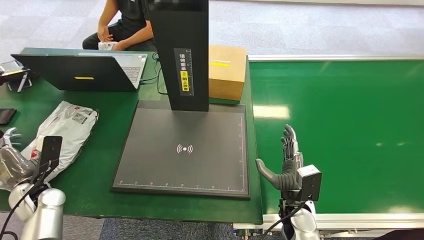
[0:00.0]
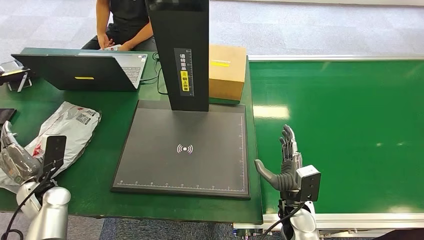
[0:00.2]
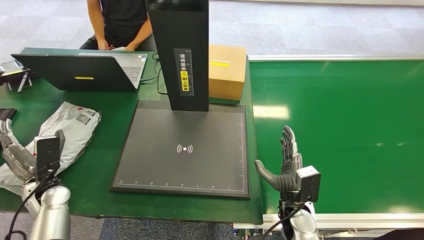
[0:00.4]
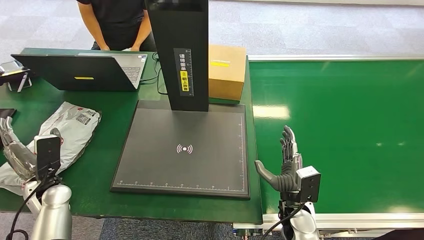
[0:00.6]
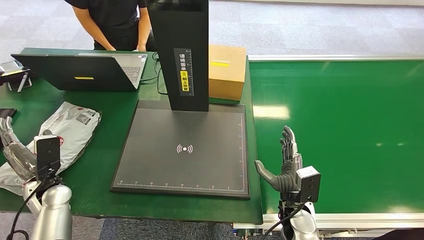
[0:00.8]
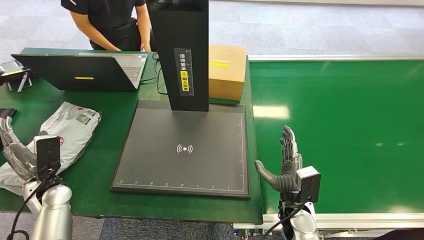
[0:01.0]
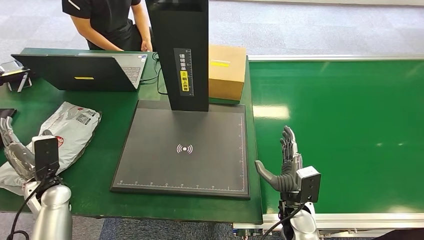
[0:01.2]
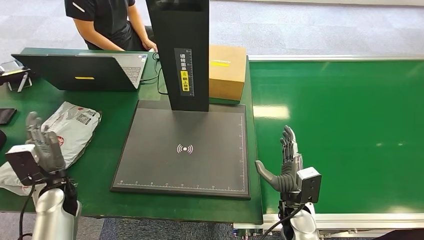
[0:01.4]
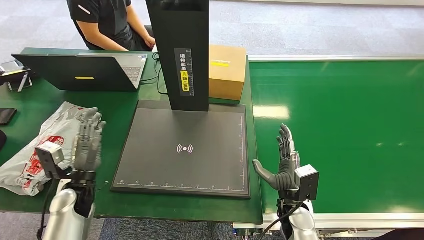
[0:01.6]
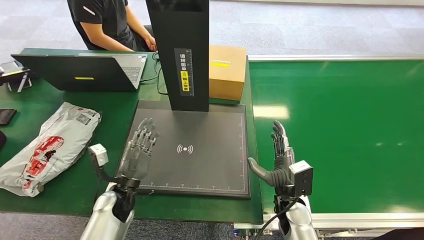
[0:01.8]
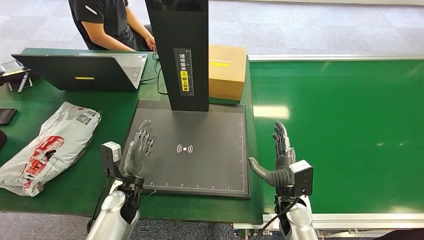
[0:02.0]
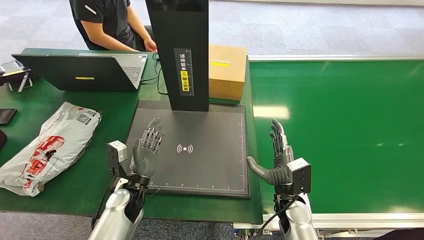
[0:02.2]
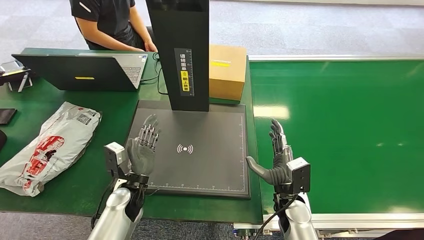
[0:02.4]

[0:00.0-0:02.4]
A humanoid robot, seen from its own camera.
Task of the whole recording: Weigh the package on the weighing device and place it in the left basket.
Step, 0:00.0 to 0:02.4: Place the package into the parcel locker.
0:01.2 to 0:02.4: The left hand heads to the right, covering approximately 20 cm.

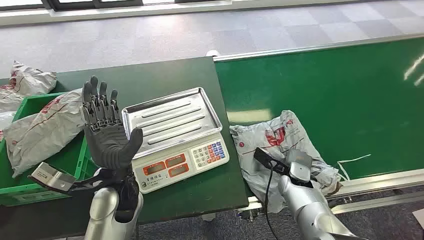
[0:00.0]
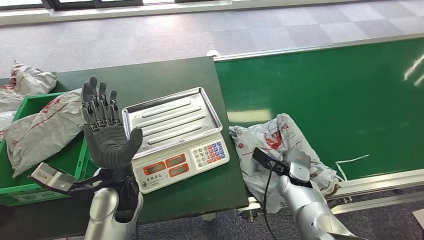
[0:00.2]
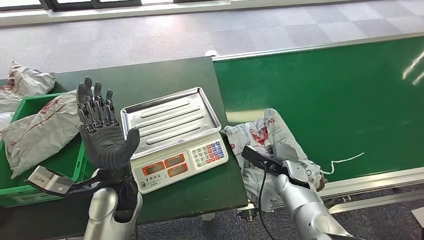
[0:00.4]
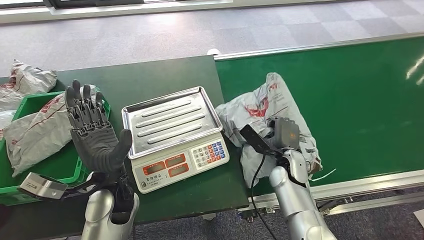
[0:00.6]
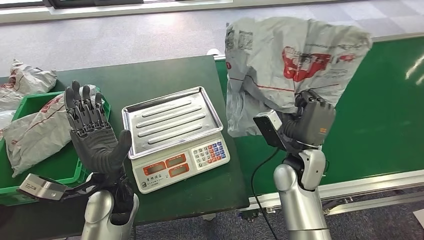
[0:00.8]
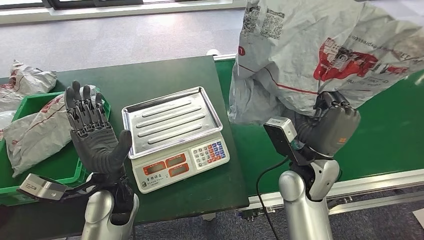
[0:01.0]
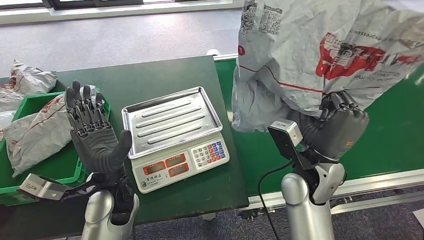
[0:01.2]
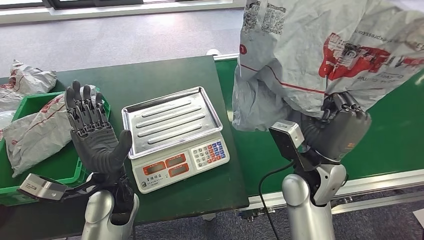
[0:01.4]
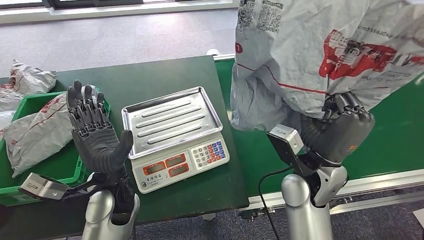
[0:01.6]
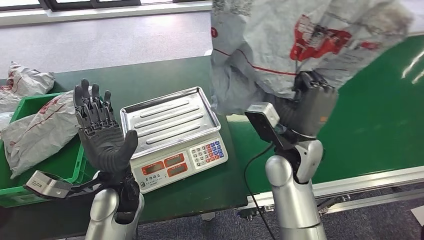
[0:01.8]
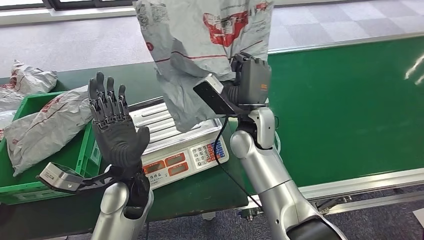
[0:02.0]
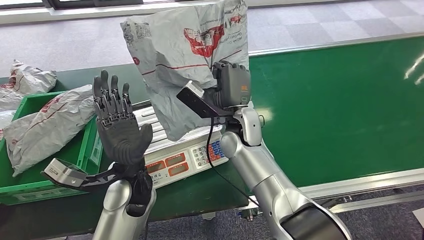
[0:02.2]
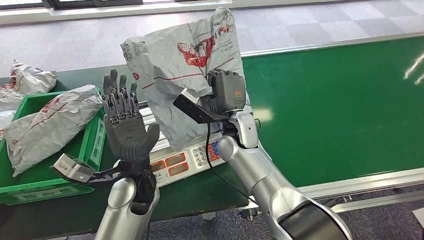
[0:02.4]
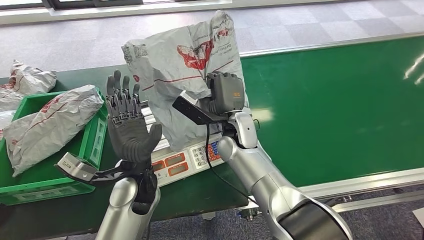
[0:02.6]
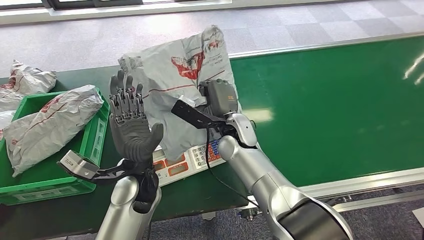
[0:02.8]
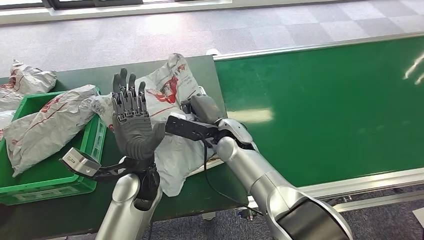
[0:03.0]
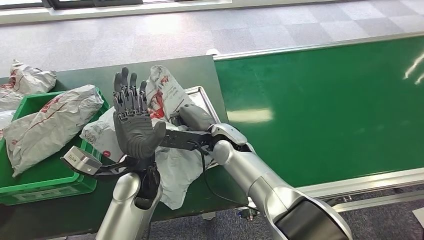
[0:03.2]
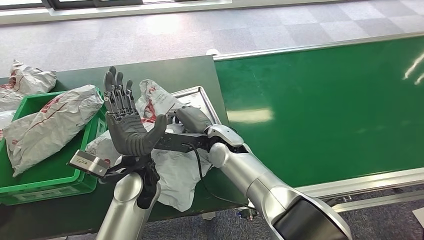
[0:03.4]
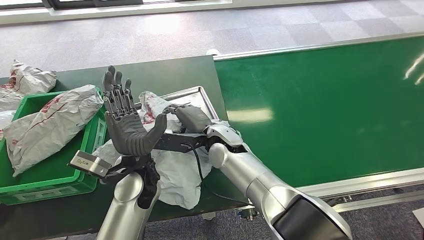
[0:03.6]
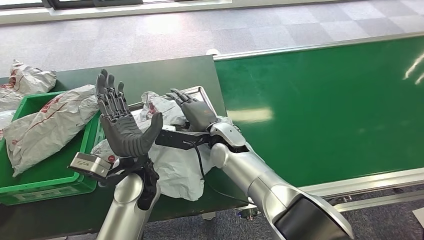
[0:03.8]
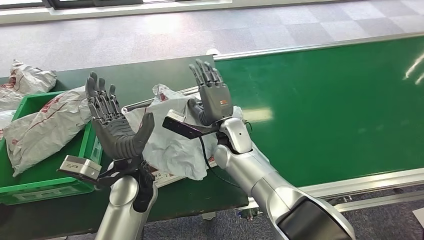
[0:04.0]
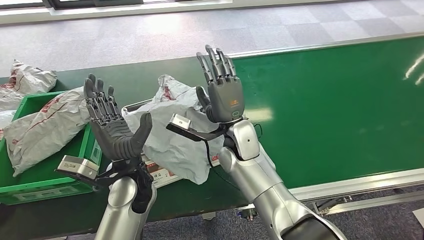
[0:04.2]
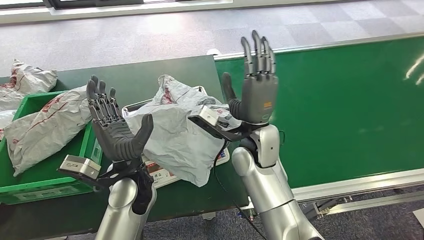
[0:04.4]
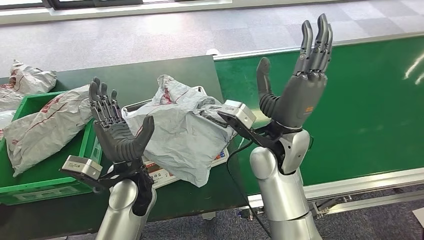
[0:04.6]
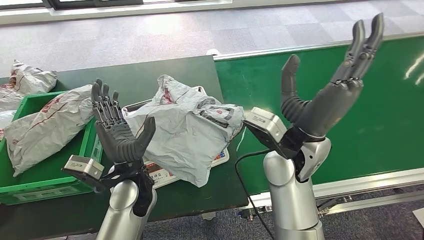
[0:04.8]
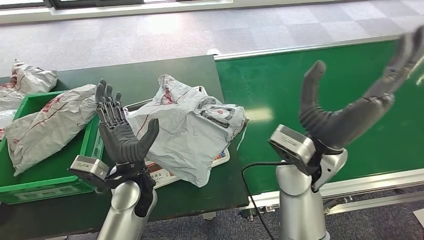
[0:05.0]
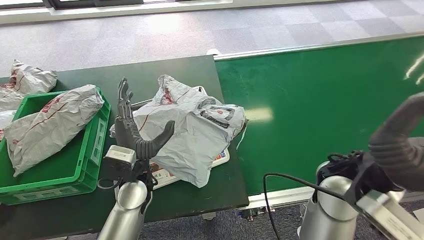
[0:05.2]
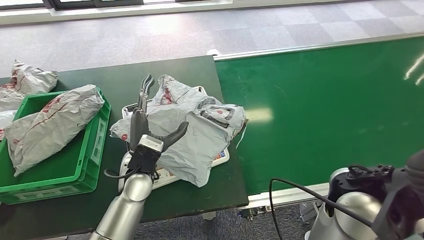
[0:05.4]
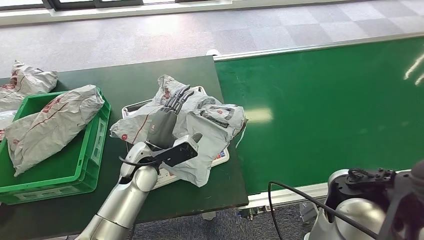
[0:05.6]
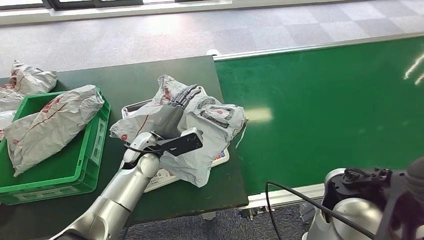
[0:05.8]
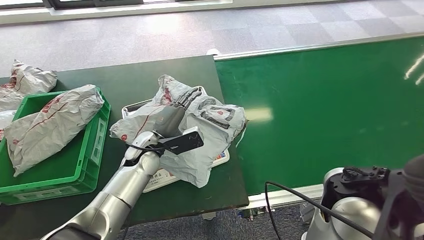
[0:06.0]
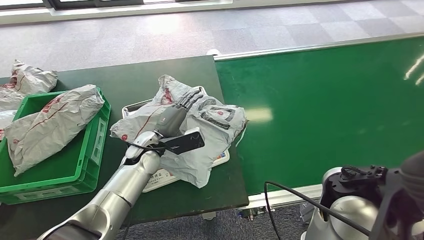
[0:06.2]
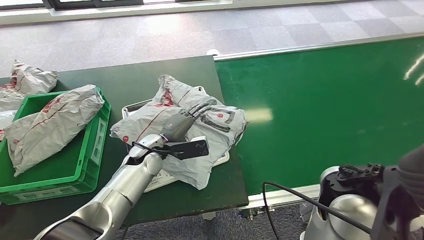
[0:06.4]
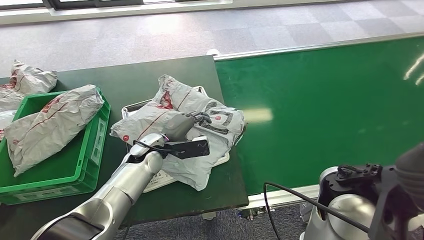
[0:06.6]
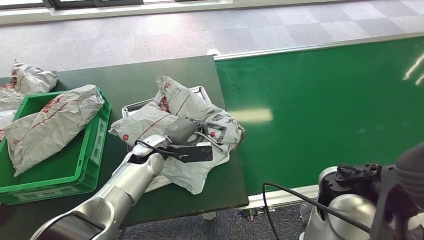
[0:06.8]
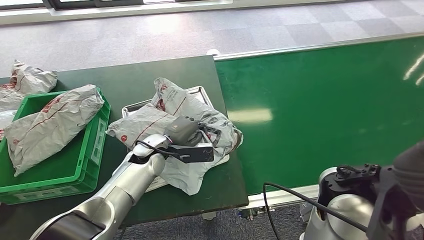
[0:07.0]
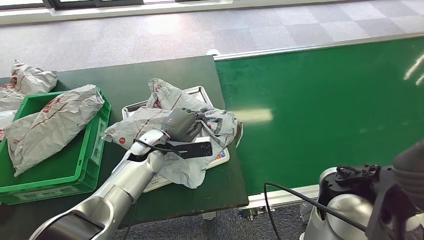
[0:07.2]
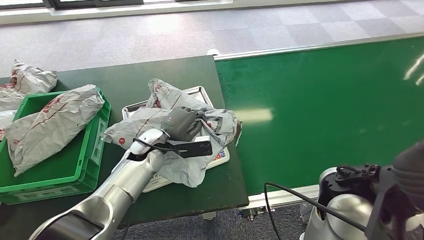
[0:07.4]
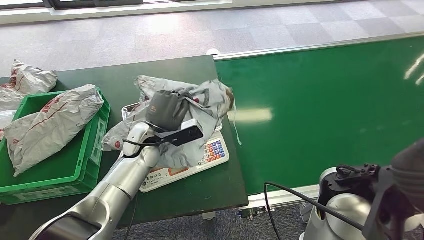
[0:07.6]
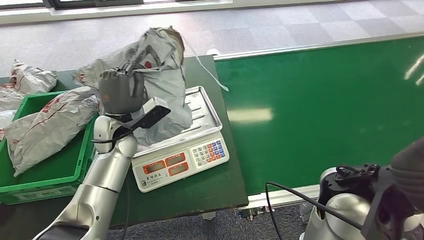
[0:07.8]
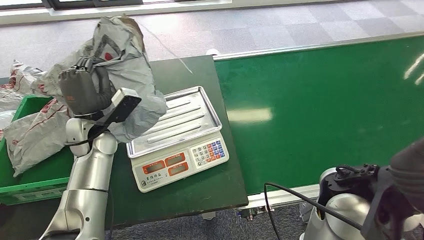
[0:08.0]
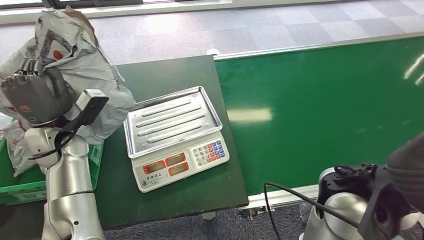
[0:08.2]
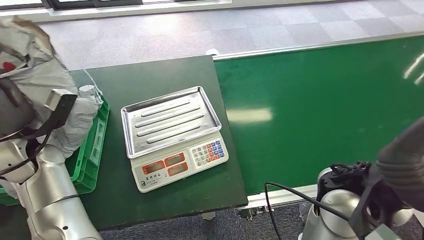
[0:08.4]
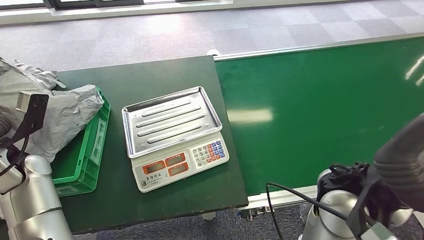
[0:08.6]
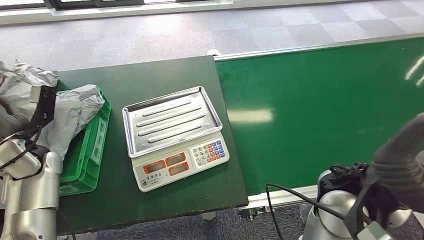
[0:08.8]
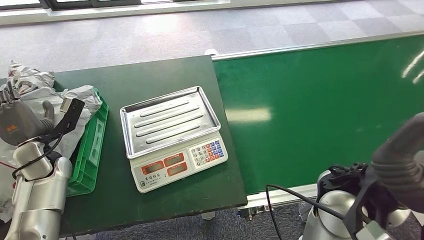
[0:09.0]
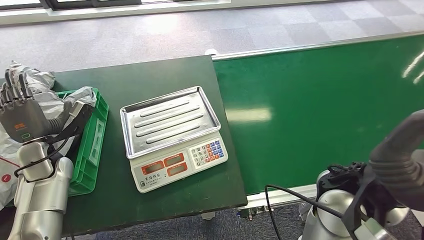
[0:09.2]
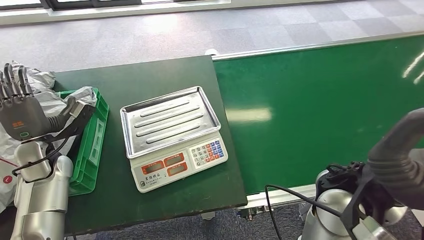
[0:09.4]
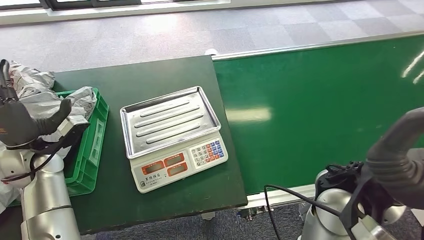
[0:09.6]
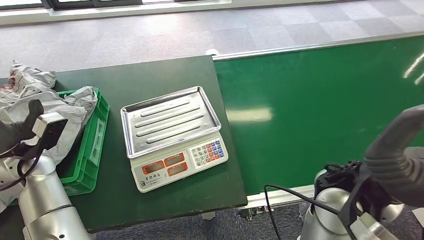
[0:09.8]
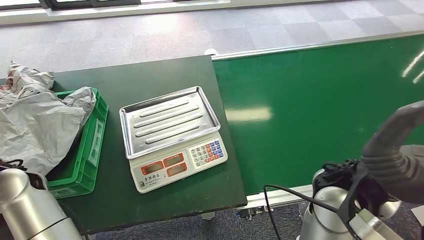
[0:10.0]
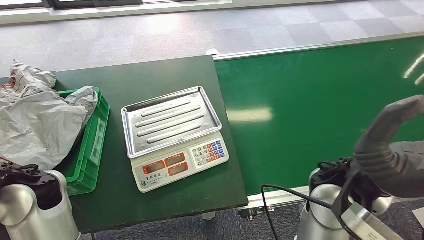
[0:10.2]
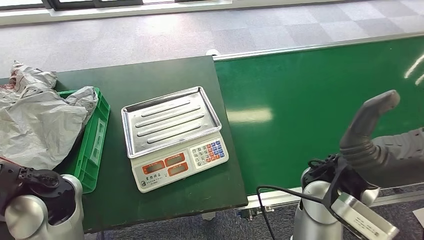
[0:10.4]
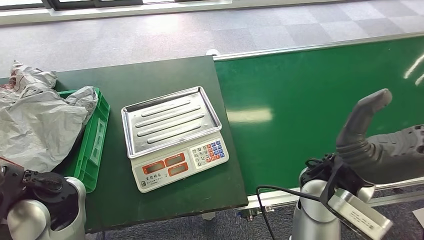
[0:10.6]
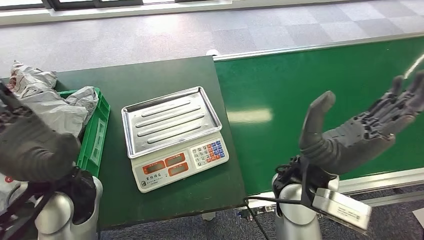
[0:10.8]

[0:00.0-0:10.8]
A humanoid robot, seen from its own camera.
Task of the whole recording: Weigh the package on the weighing device and place it in the left basket.
Step, 0:00.0 to 0:00.8: Pick up the package from the conveyor belt.
Step, 0:01.0 to 0:04.8: Place the package onto the inbound machine.
Step, 0:05.0 to 0:08.2: Pick up the package from the inbound machine.
Step, 0:08.6 to 0:10.8: Place the package into the parcel locker.
